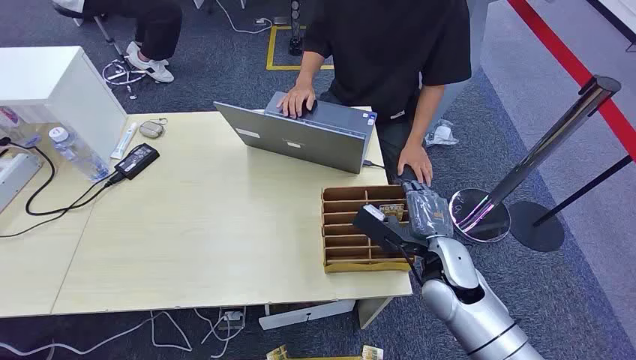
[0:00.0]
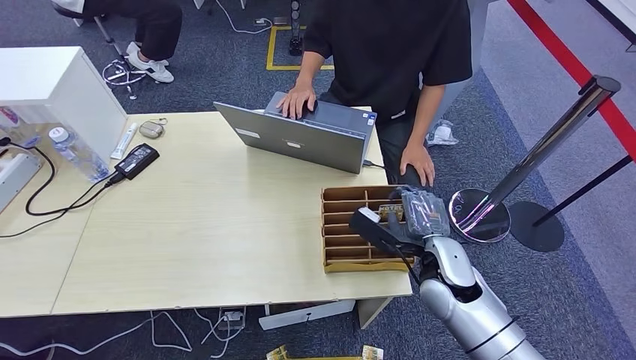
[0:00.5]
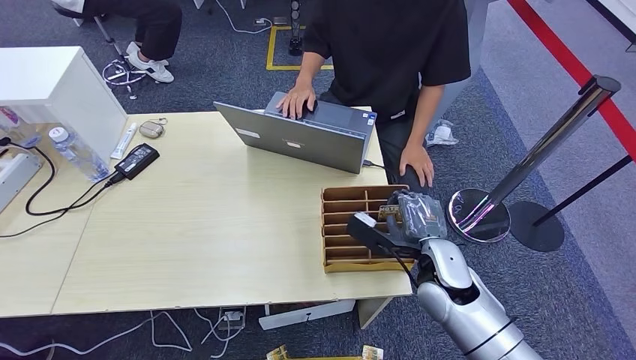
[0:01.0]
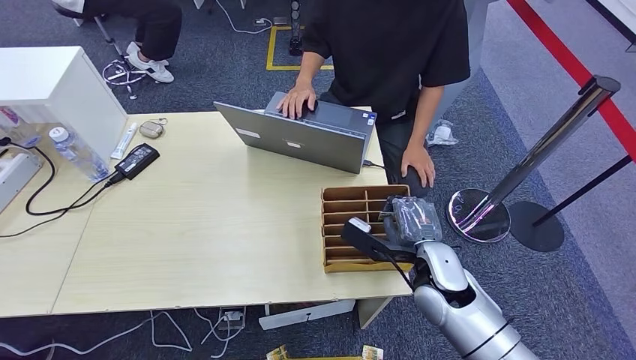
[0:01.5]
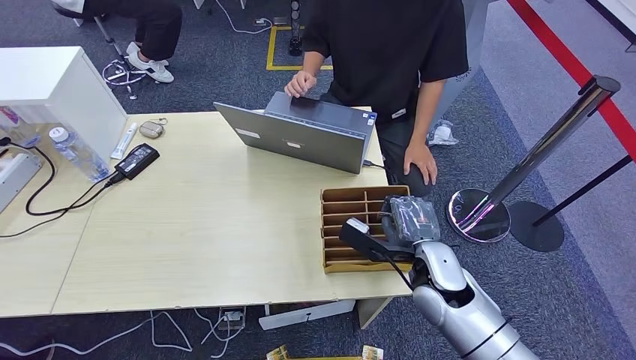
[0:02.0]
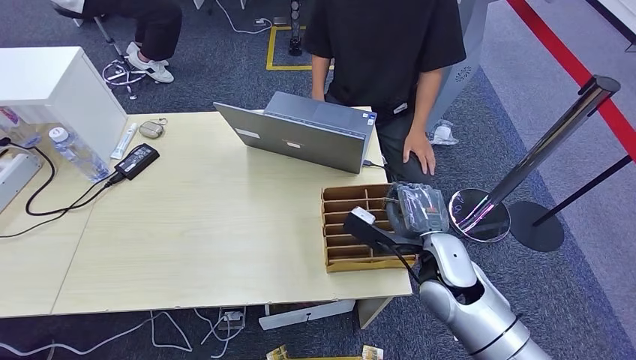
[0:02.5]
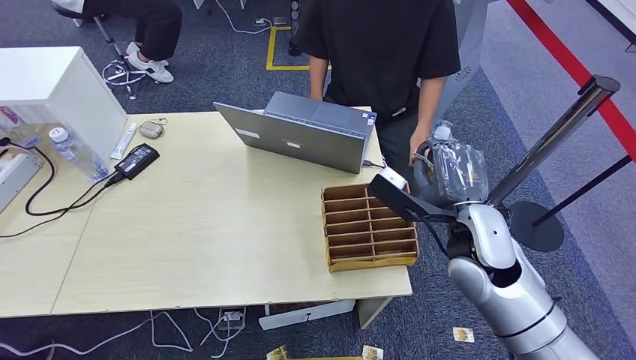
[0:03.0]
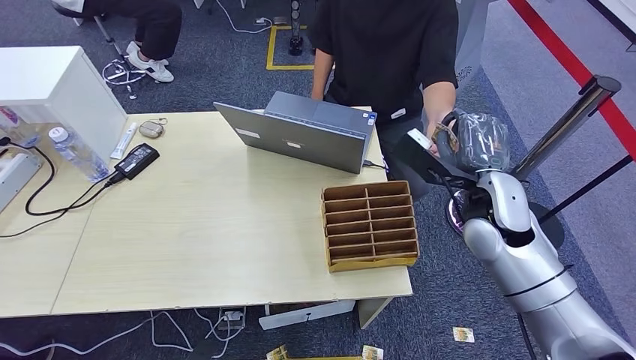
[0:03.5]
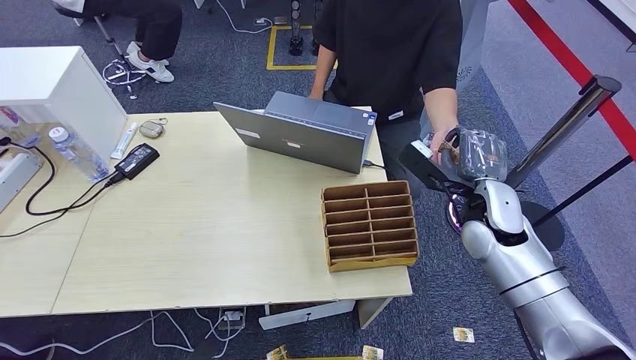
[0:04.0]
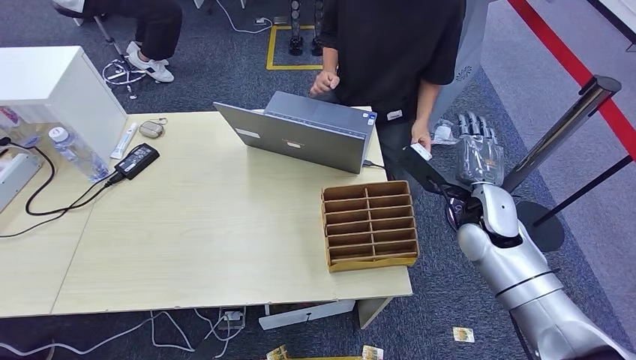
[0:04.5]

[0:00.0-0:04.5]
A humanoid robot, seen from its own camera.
Step, 0:00.0 to 0:02.5: Pick up the key card from the card box.
Step, 0:03.0 to 0:04.0: Hand the key card to the target.
0:02.0 to 0:04.5: The right hand shifts some 15 cm to the right, forward and upward.

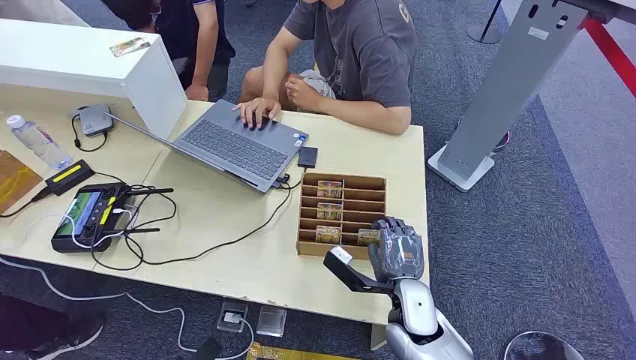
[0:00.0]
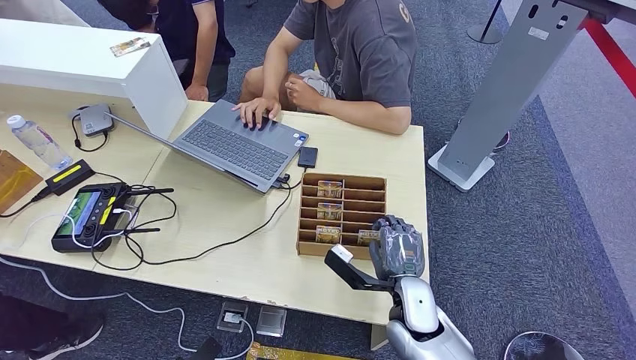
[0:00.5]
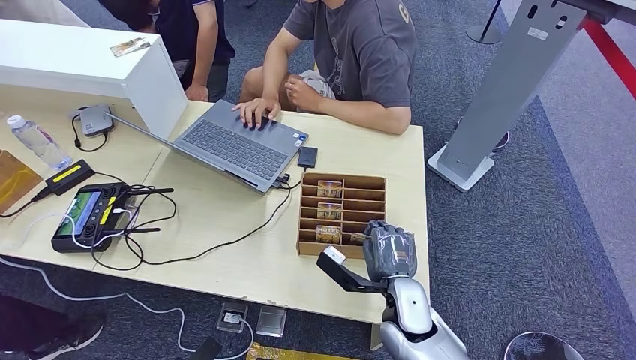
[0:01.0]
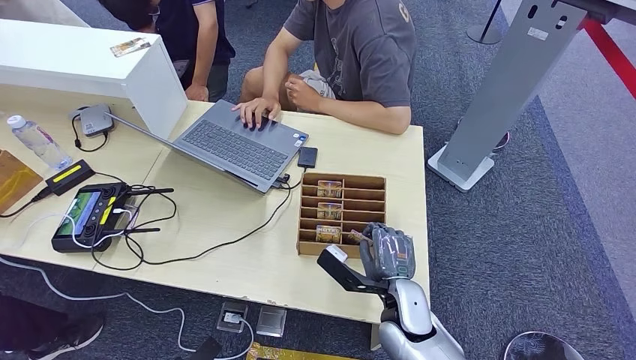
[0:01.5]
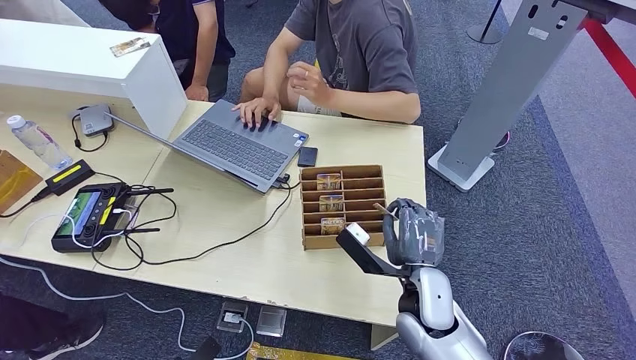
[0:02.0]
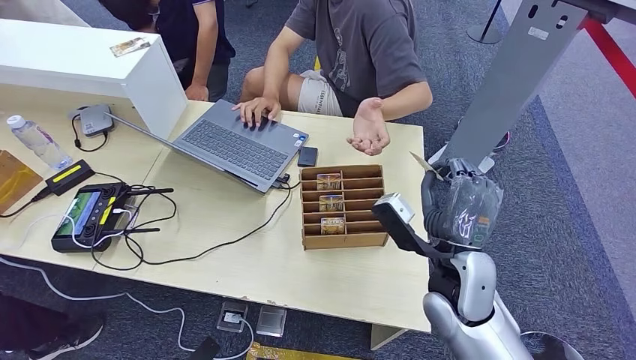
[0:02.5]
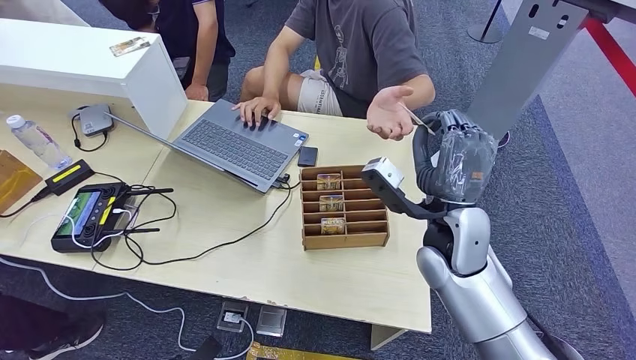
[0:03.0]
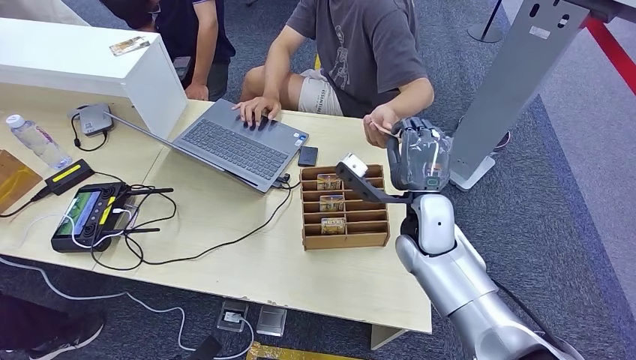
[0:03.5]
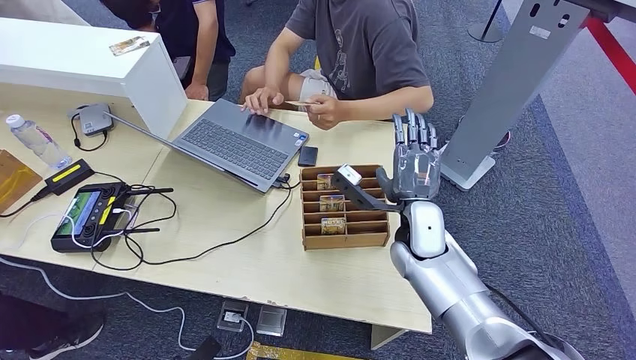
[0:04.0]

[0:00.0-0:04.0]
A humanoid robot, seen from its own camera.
Step, 0:00.0 to 0:02.0: Pick up the key card from the card box.
Step, 0:02.5 to 0:04.0: Hand the key card to the target.
0:02.0 to 0:04.0: The right hand shifts about 10 cm forward.
